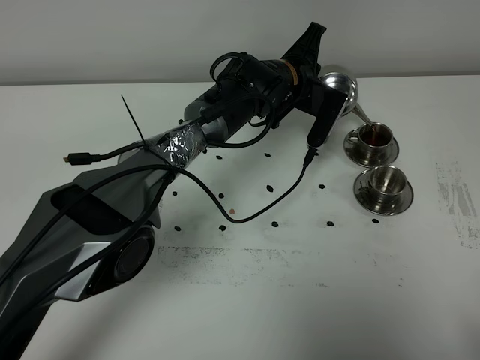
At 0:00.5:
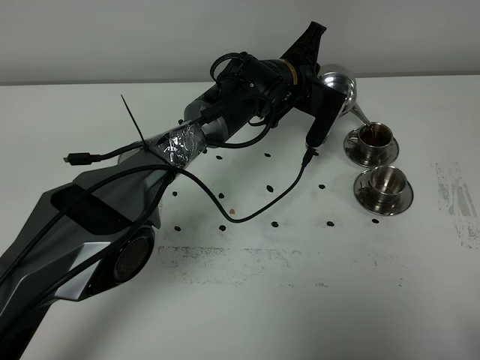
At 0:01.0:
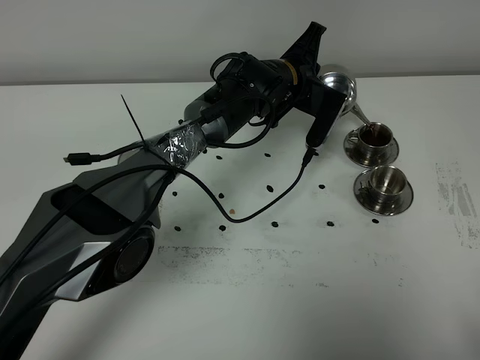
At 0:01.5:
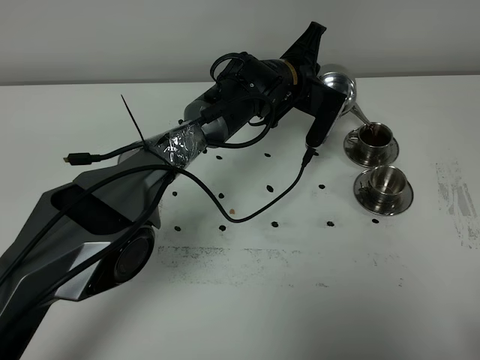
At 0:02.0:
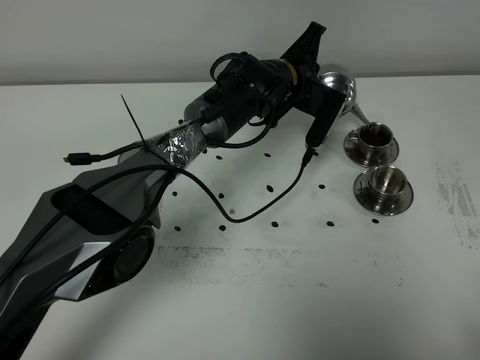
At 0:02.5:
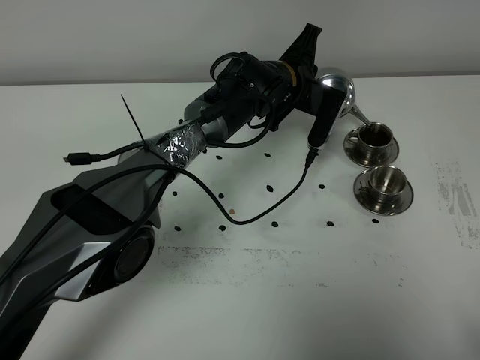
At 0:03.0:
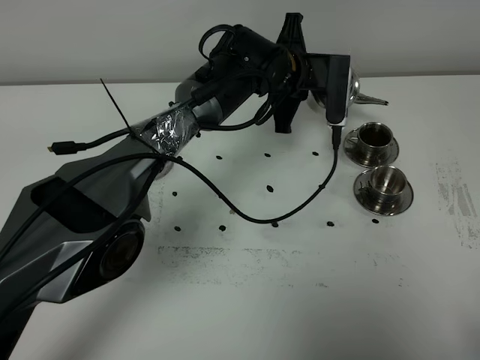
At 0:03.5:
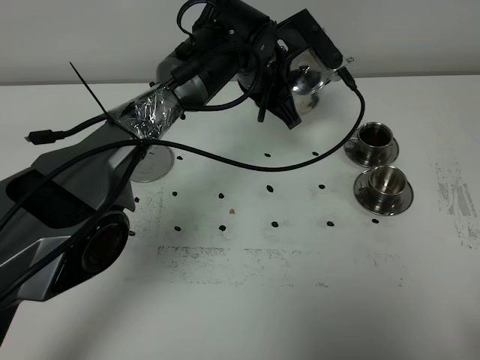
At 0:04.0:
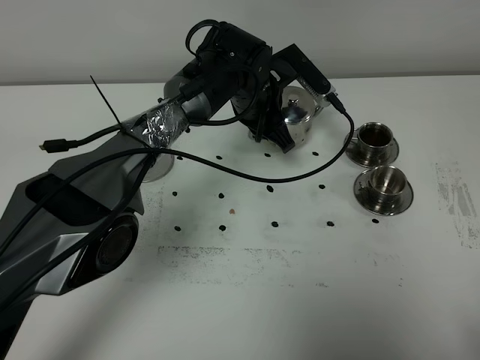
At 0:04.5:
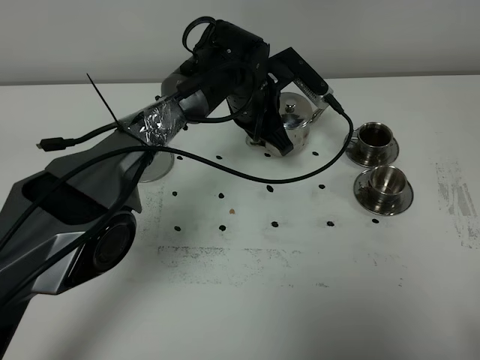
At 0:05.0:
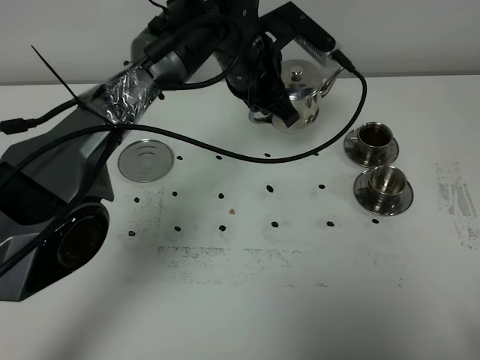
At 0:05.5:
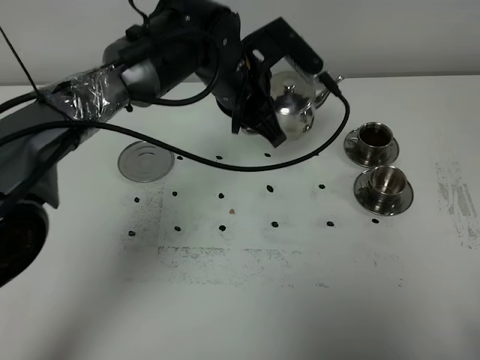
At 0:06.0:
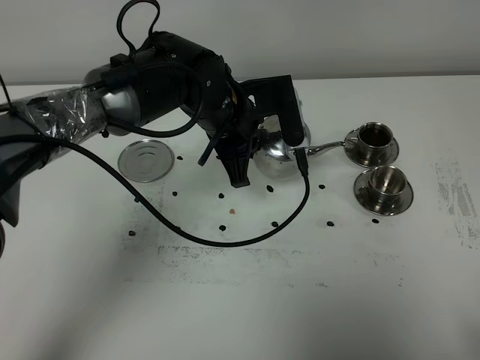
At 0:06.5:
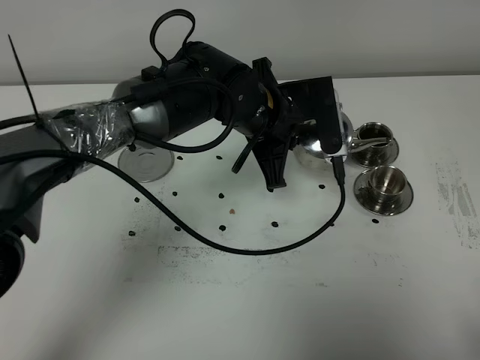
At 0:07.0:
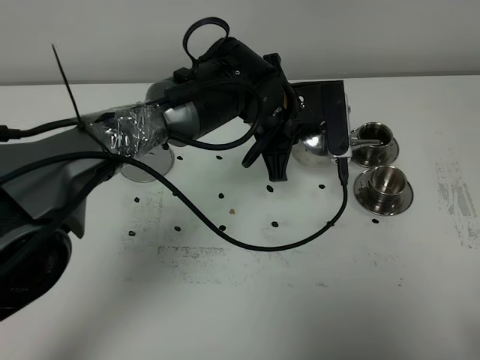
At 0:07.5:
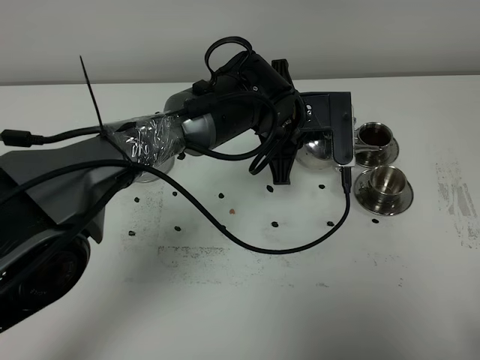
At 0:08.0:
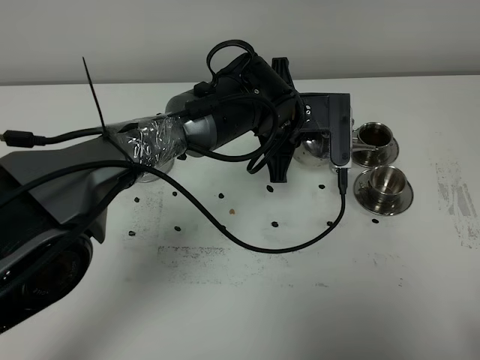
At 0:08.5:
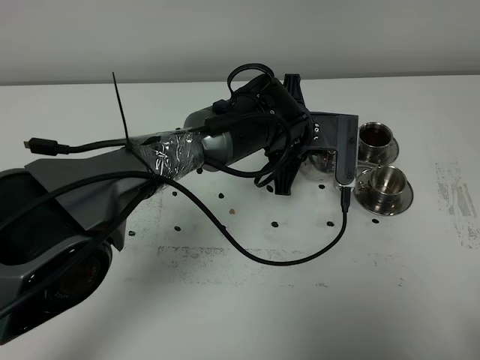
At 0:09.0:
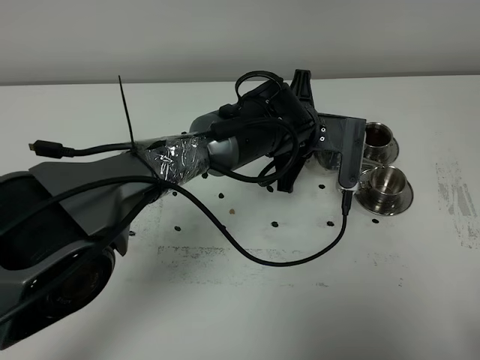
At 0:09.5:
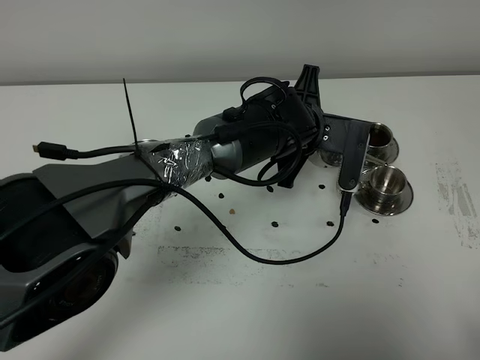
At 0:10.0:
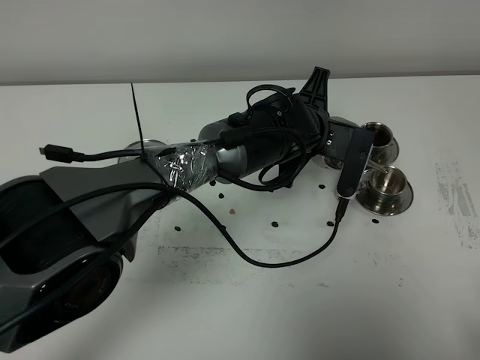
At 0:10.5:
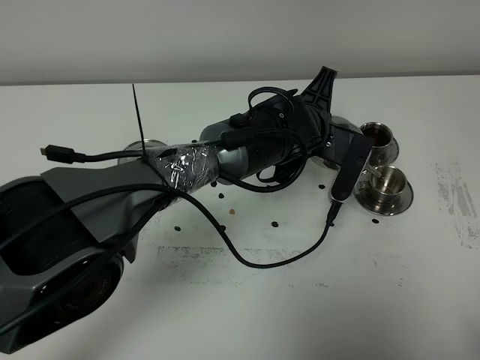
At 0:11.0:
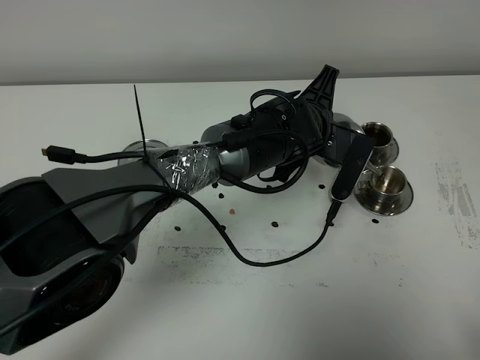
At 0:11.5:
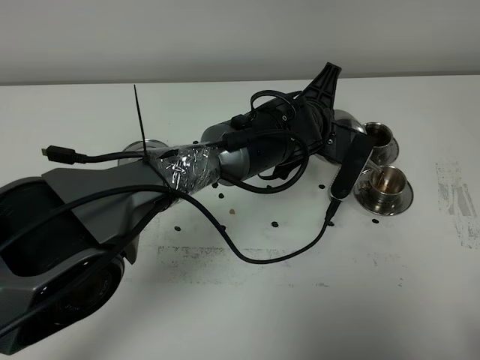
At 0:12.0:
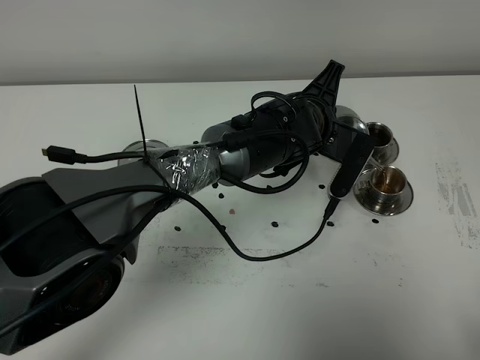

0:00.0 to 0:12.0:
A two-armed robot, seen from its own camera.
Task of the whole recording: grasp the stainless steel teapot and pour the tea into the two stainless steel teacups one by one, put the stainless steel teapot back in its original place.
0:00.0 to 0:02.0: The two grippers keep their place.
0:04.0 to 0:06.0: The left gripper heads backward, covering approximately 10 cm.
0:06.0 to 0:08.0: The left gripper moves to the right, roughly 5 cm.
0:10.0 to 0:12.0: The grippers move only a little.

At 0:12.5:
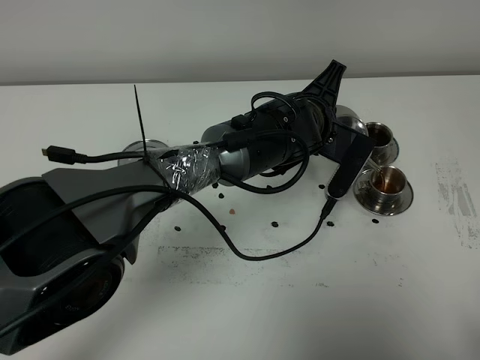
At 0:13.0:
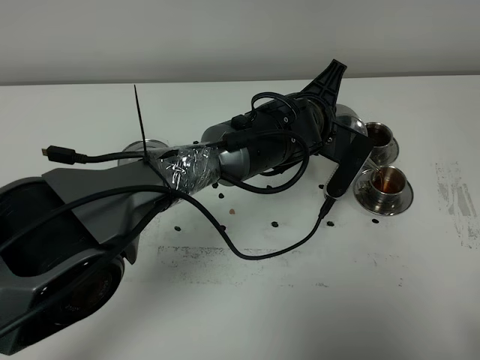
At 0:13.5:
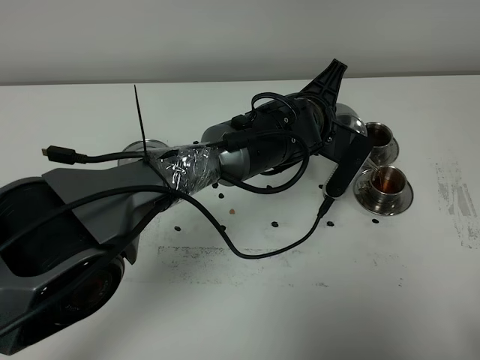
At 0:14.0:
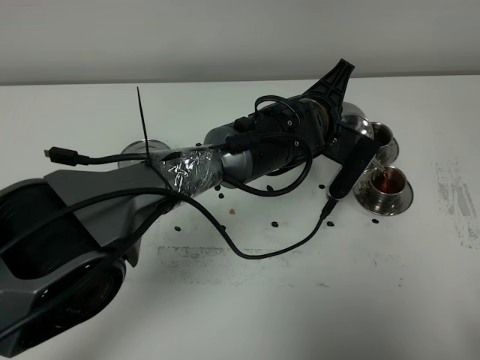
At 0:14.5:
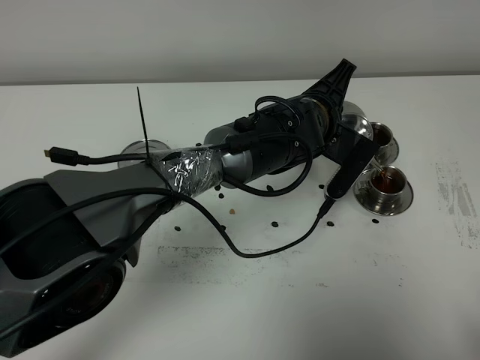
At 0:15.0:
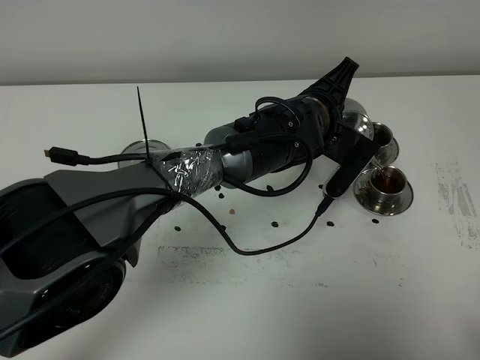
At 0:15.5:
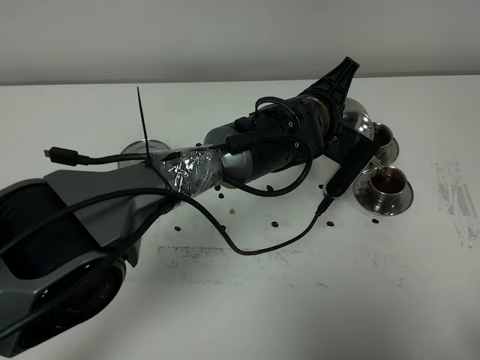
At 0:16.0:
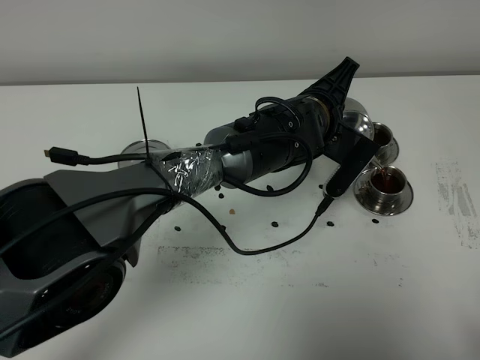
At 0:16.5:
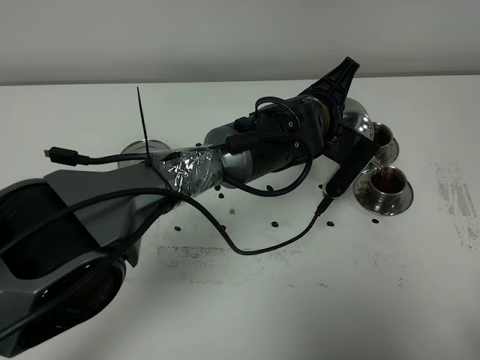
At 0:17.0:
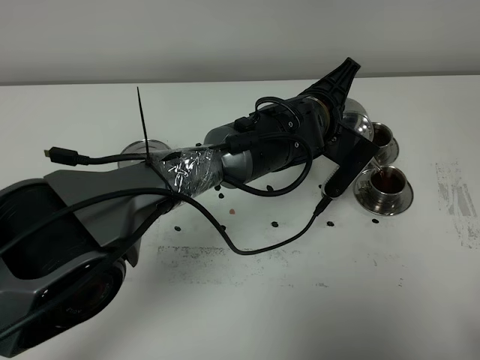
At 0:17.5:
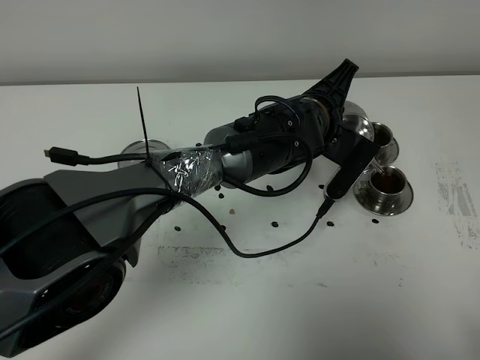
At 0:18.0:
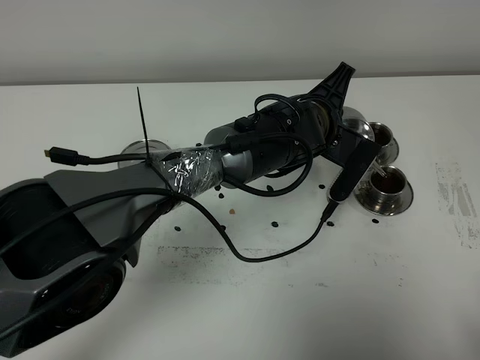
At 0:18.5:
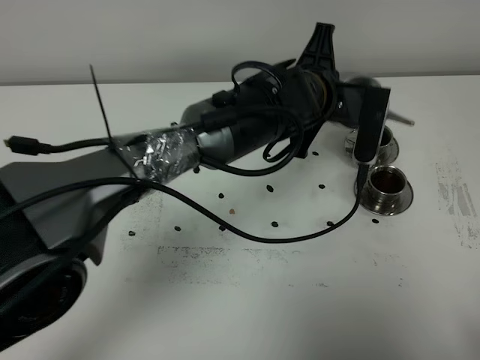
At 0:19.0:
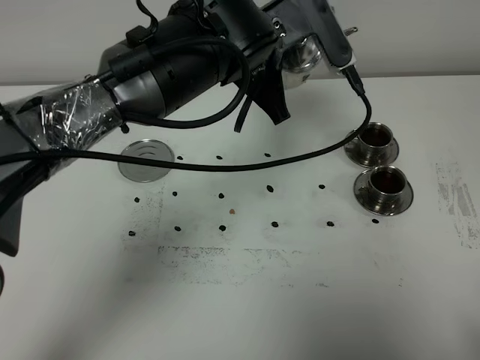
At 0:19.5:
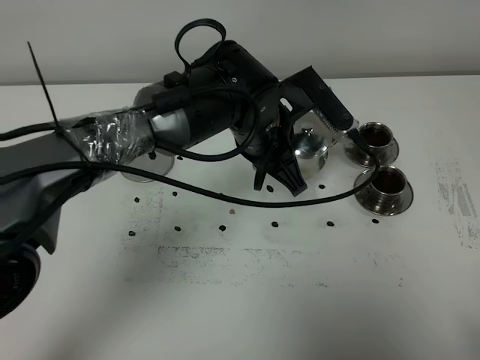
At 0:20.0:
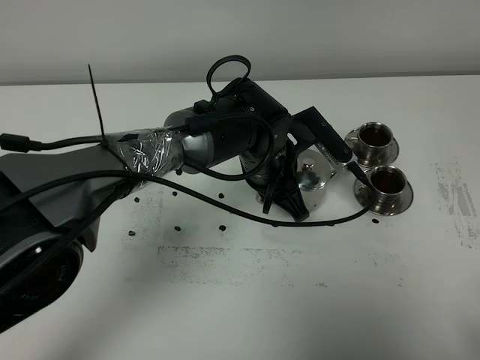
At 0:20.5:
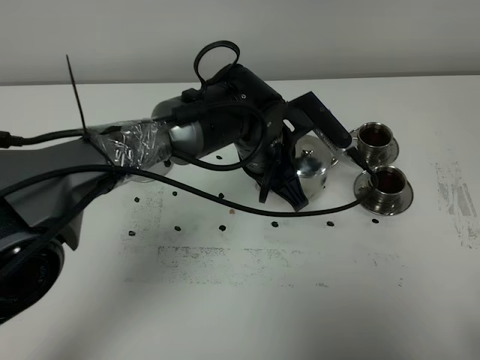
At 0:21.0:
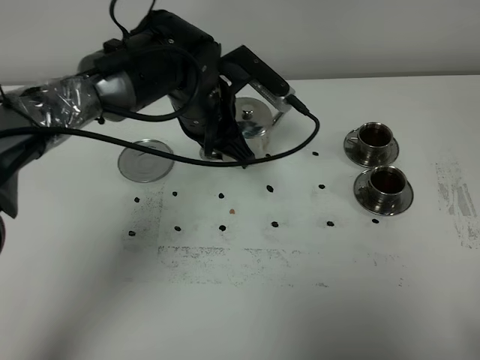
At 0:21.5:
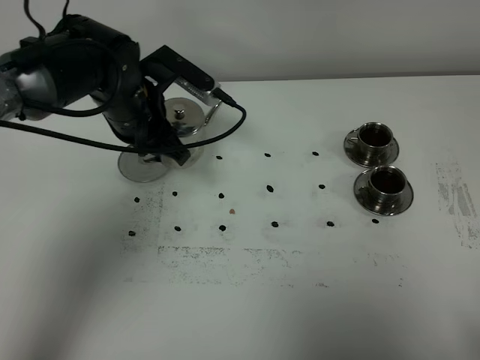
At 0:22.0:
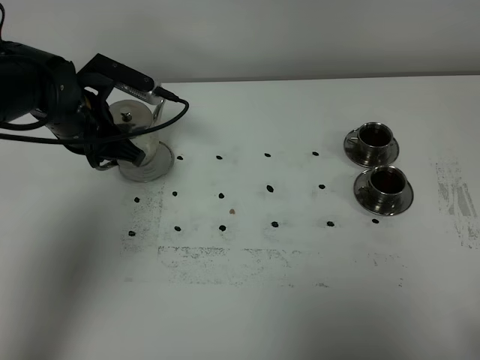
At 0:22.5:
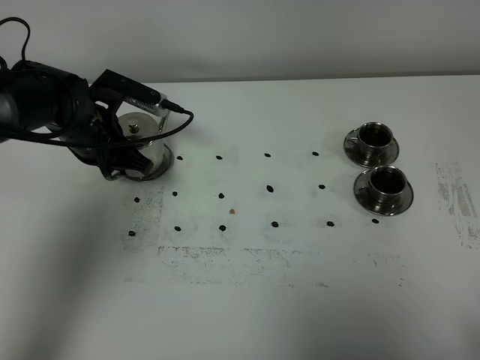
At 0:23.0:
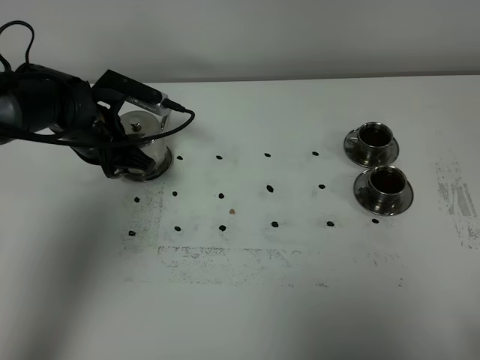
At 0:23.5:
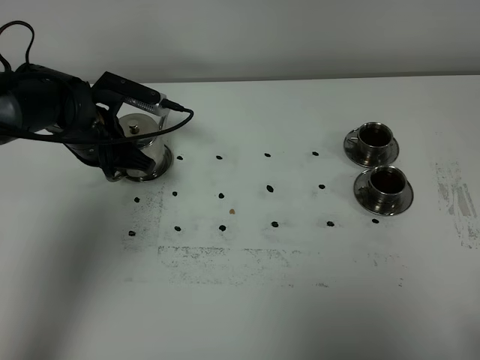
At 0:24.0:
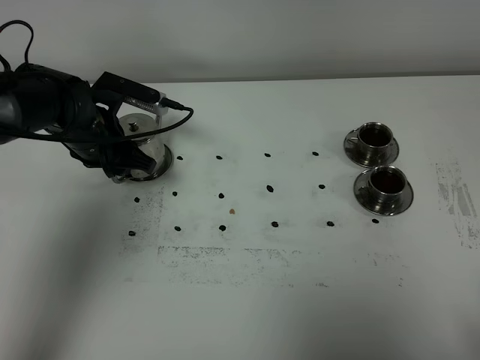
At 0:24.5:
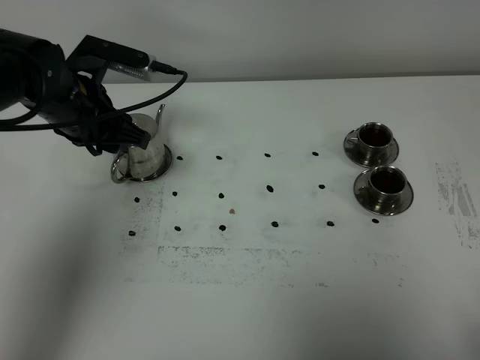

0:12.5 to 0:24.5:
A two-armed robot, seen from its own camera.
Task of the whole recording: grasp the stainless steel teapot and pour the tea into the two stainless steel teacups one by one, put the stainless steel teapot back in its original place.
Step, 0:12.5 to 0:18.5: Pour tea into the teacup with the left gripper.
0:12.5 to 0:14.5: The grippers move only a little.
0:14.5 to 0:16.5: Neither gripper changes place.
0:16.5 to 0:18.5: The left gripper travels upward by some 5 cm.
0:18.5 to 0:20.5: The left gripper heads downward and to the left, covering roughly 5 cm.
0:20.5 to 0:22.5: The left gripper heads to the left, covering about 20 cm.
0:22.5 to 0:24.5: The left gripper goes approximately 5 cm upward, and opens up.

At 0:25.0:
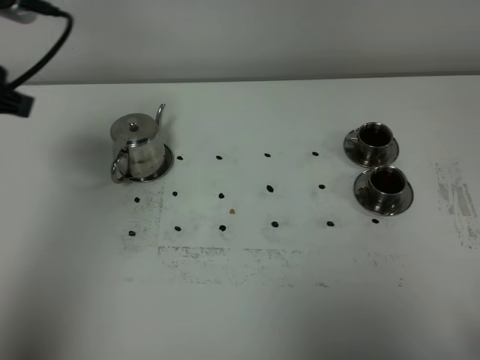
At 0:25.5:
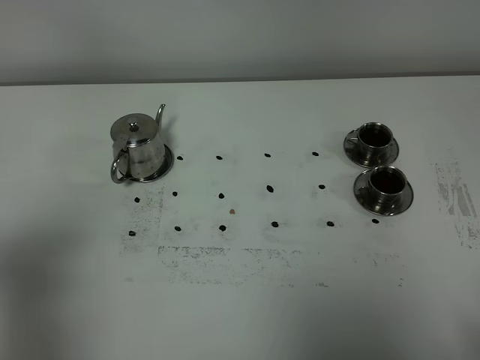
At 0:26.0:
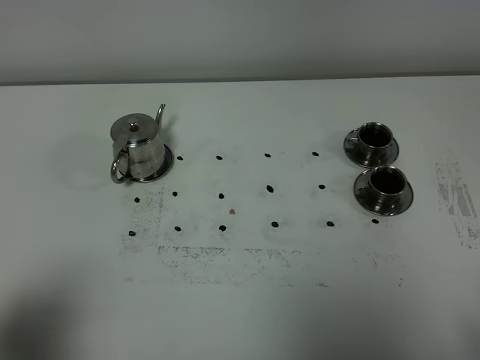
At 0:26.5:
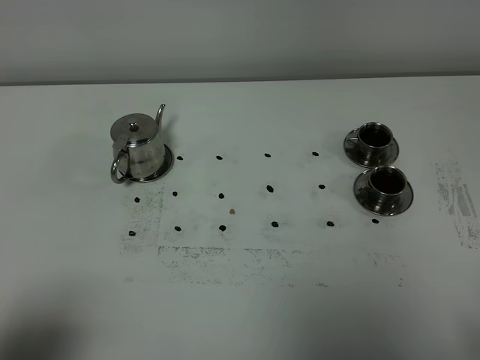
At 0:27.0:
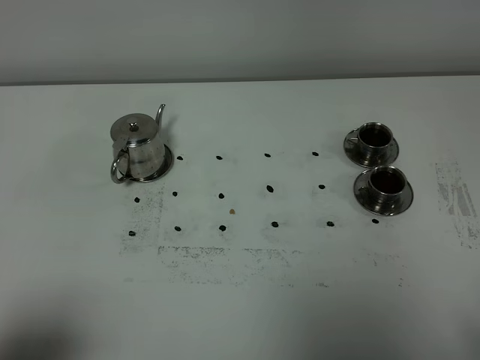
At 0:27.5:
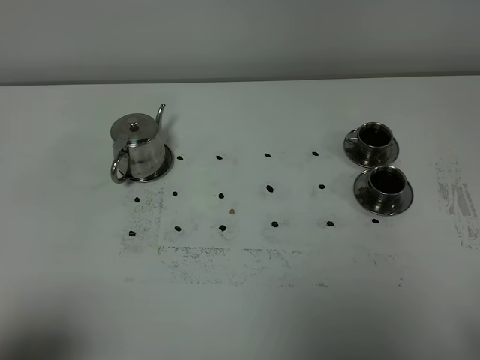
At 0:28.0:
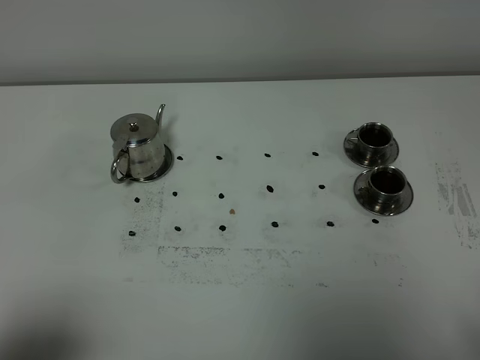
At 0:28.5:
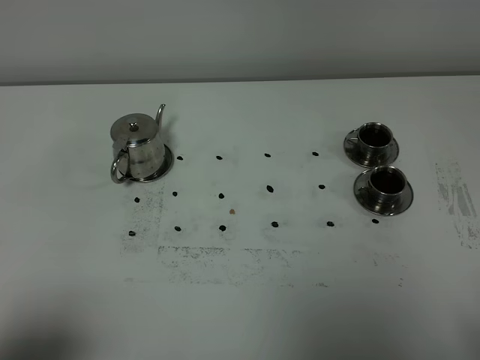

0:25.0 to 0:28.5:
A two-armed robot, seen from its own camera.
Task of the whole recording: grasp the stainless steel teapot and pour the tea into the two stainless steel teacups one by one, put the stainless steel teapot back in its original place.
0:25.0 to 0:27.0: The left gripper travels backward by some 30 cm.
0:27.0 to 0:28.5: Both grippers stay put.
